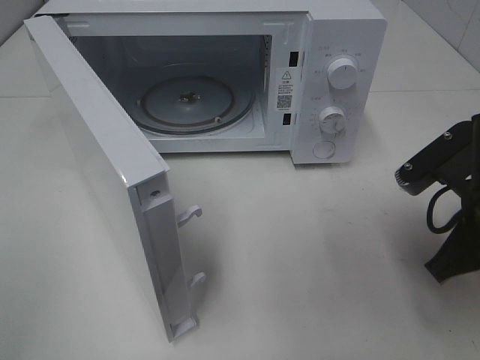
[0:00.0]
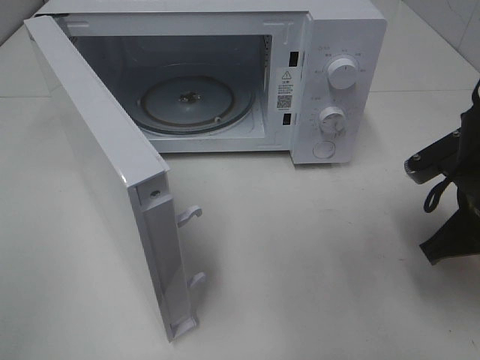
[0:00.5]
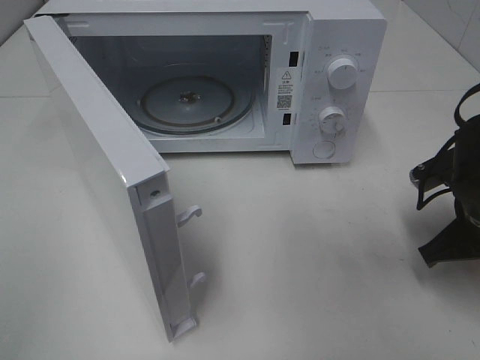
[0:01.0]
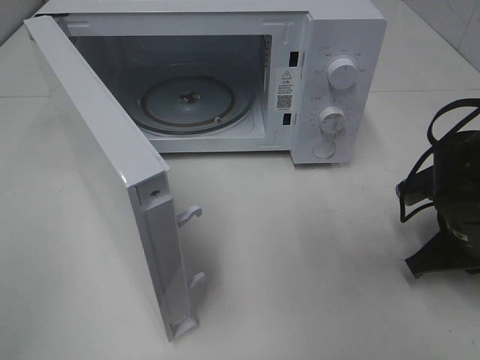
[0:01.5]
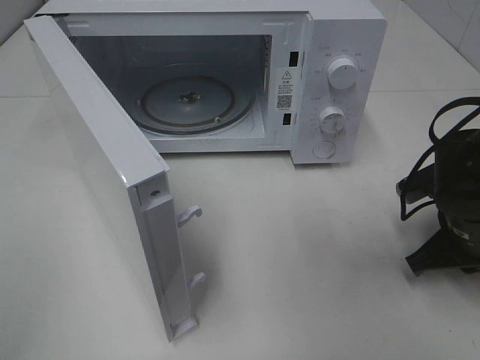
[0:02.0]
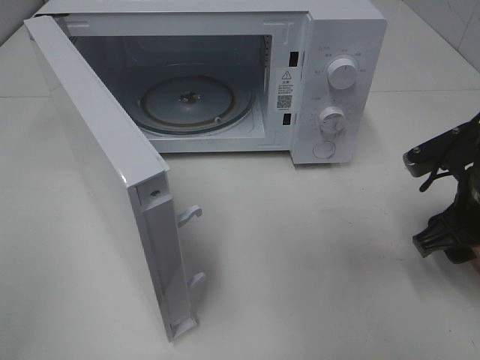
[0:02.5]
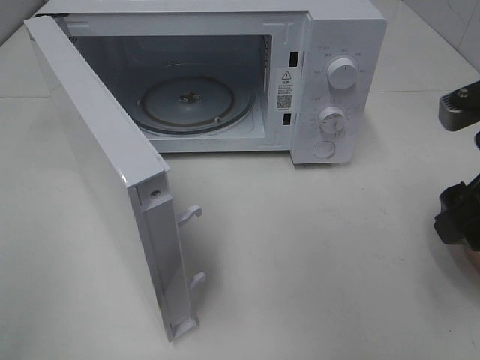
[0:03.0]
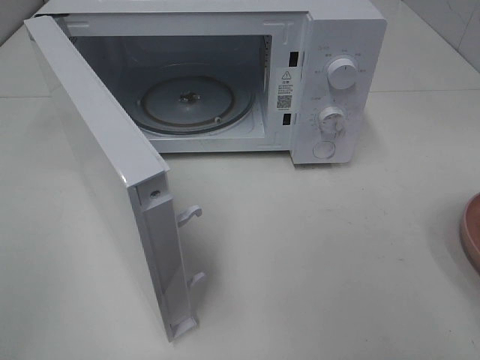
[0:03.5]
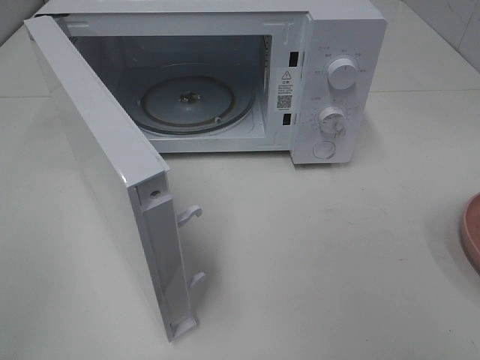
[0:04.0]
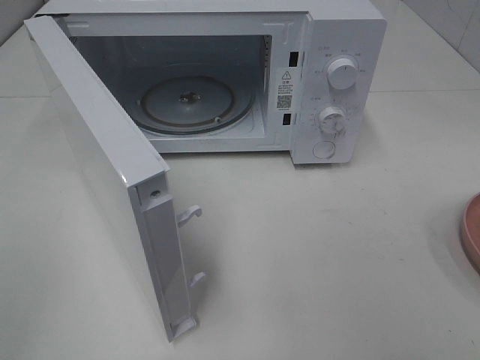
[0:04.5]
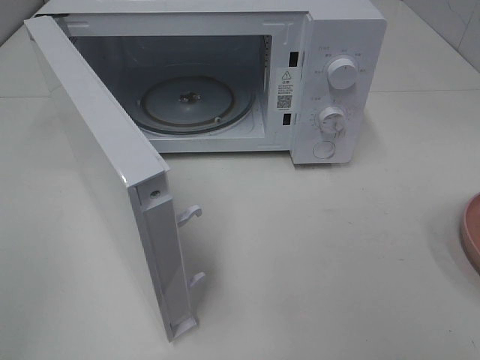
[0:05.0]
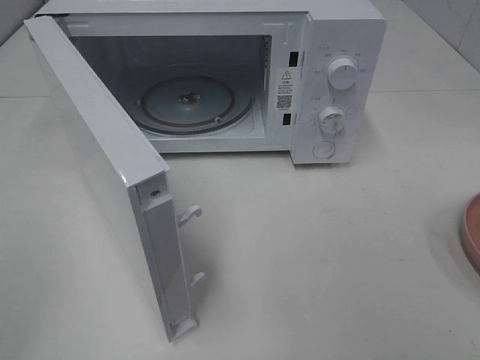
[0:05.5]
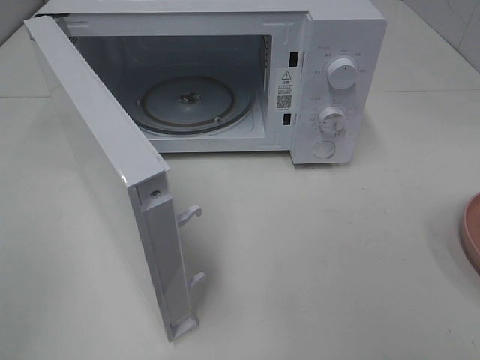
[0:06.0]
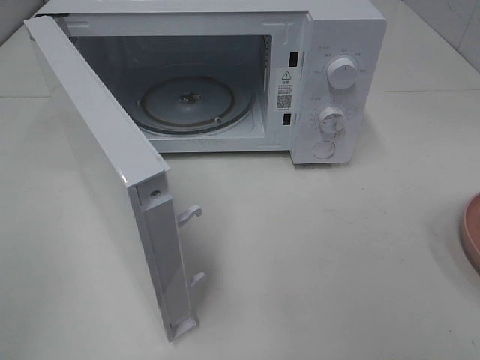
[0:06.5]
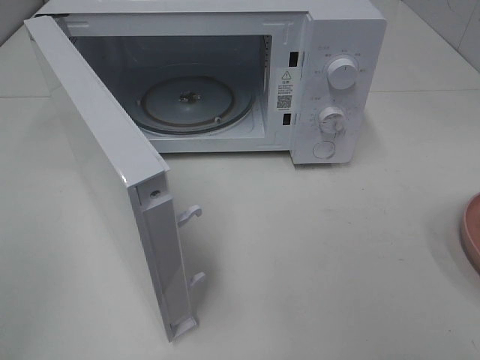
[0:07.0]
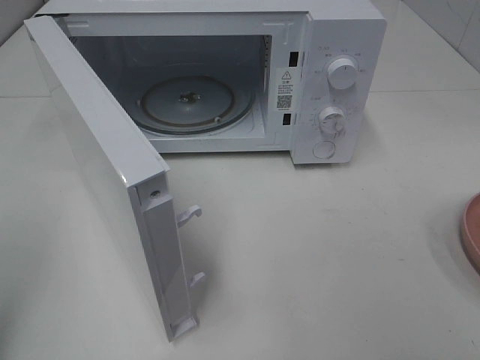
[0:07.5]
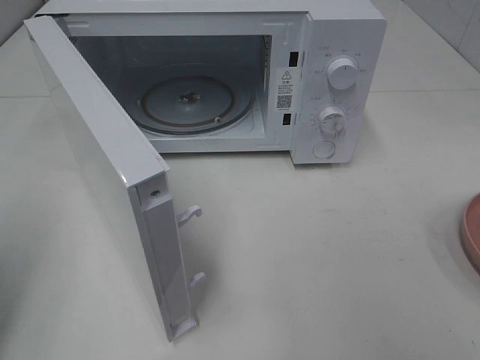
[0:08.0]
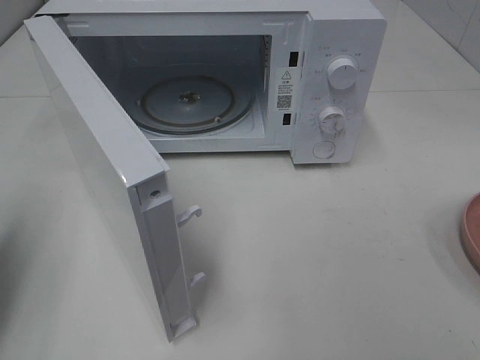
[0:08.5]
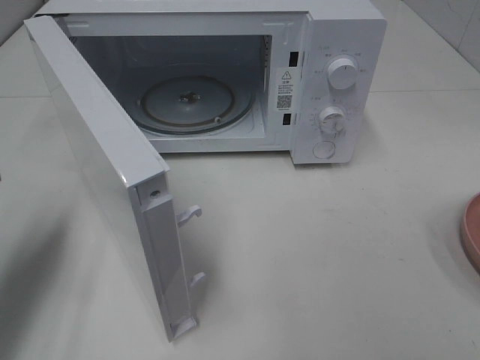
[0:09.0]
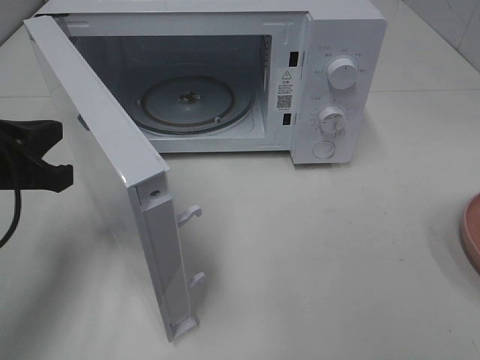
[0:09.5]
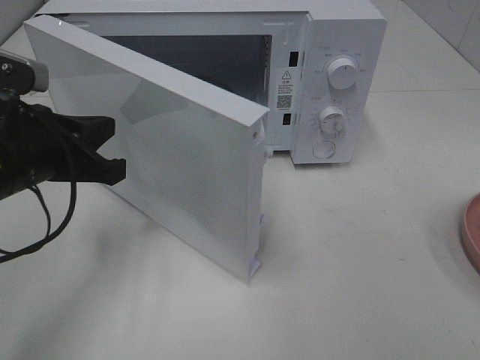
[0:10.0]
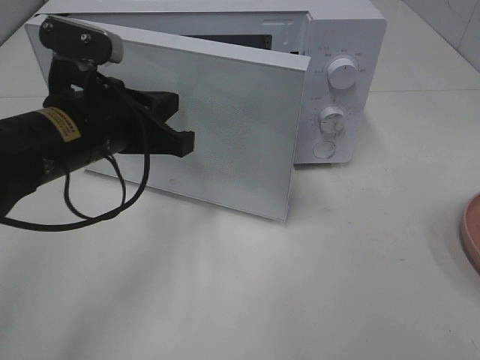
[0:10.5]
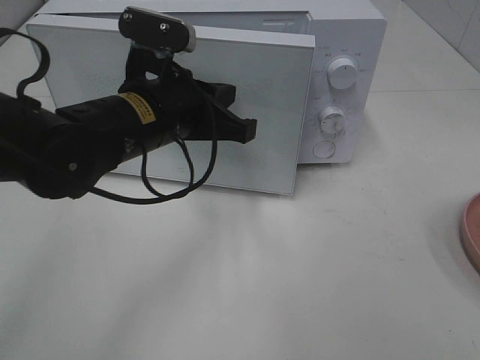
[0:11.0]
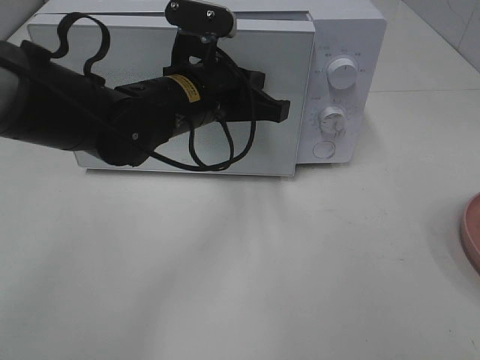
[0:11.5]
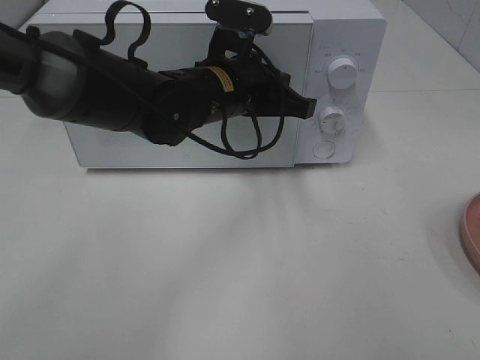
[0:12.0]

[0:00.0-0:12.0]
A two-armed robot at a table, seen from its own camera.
Task of the whole recording: Heat Sandwich.
Step, 0.0 to 2.0 s: Right hand: place the plate on the table.
0.0 to 2.0 s: The right gripper moves downward and forward, roughly 10 cm.
2.0 to 4.0 s: The right gripper shifts about 30 cm upward and backward, and opens.
8.0 to 10.0 s: The left gripper travels to the right, forward and downward by roughly 20 cm.
10.0 to 12.0 s: The left gripper heads to the right and forward, covering approximately 20 cm.

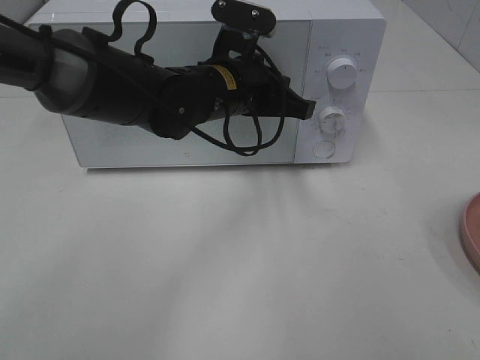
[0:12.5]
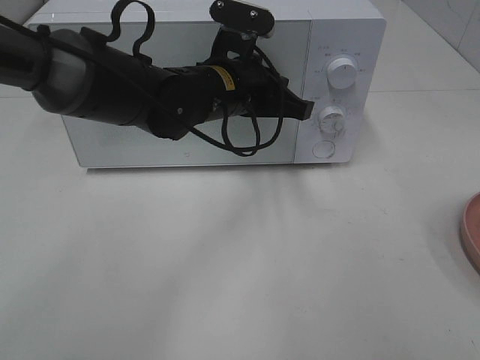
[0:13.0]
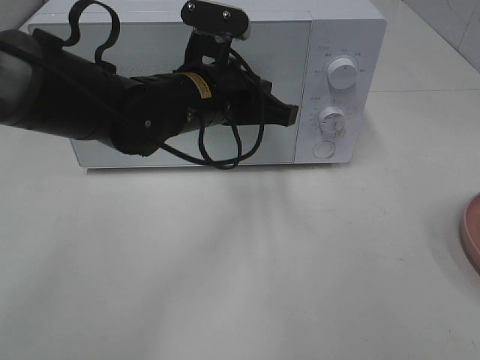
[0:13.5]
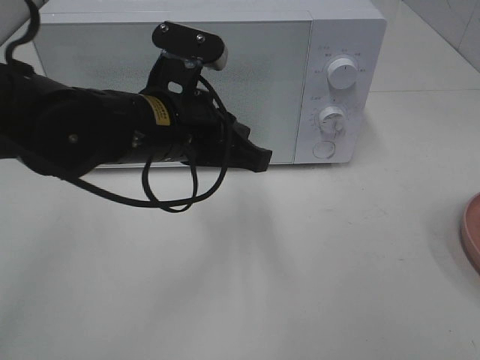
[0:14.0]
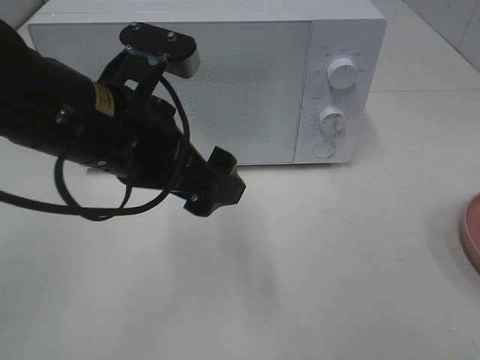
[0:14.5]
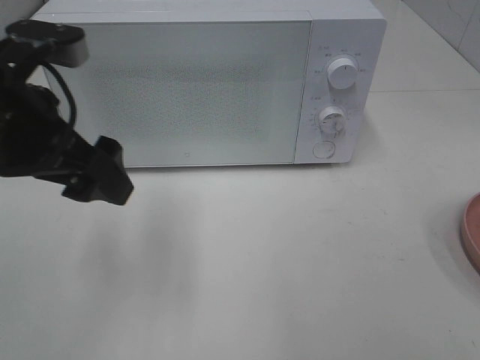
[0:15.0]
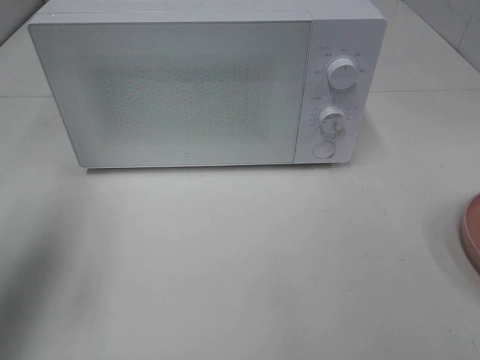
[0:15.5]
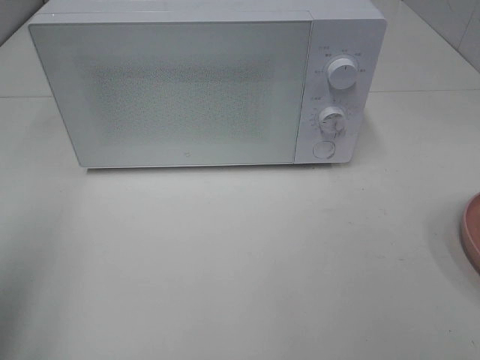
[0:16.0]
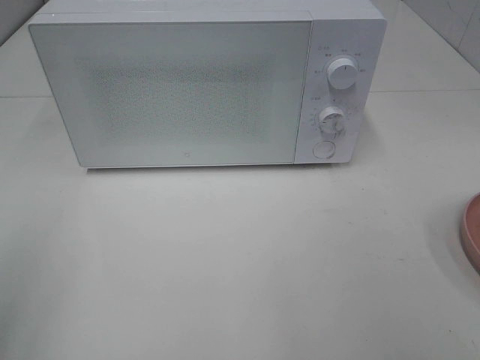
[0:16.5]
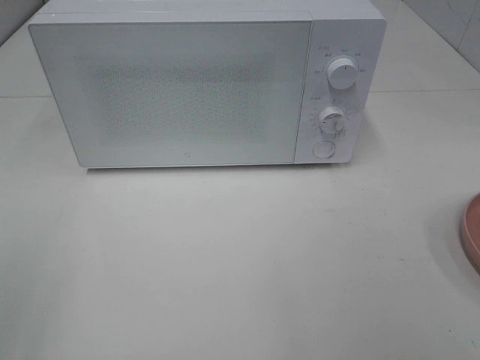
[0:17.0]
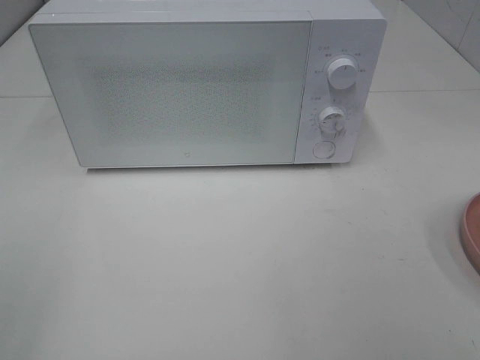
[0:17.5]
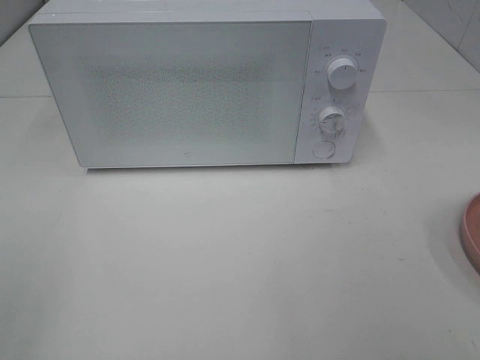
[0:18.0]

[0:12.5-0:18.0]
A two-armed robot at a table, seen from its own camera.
Task of the whole recording: Heat Sandwich.
12.5 to 14.5 s: The left gripper shifts roughly 15 cm backward and to the left, and opens up.
14.5 to 16.0 s: The left gripper travels to the left and backward by approximately 25 cm.
16.0 to 18.0 s: The left gripper is displaced backward by approximately 10 cm.

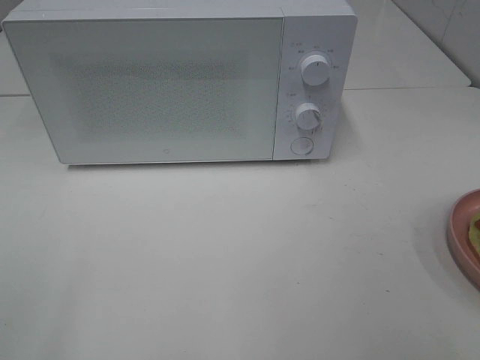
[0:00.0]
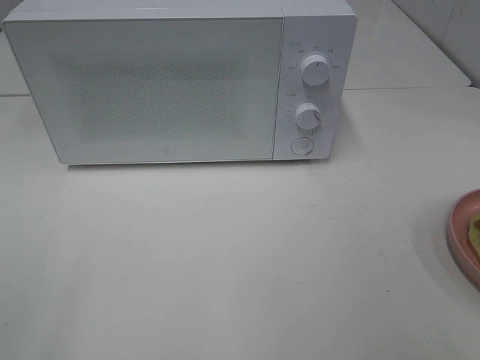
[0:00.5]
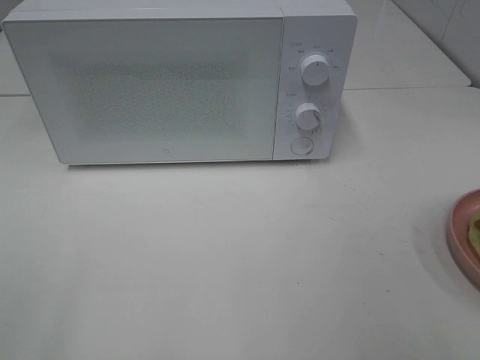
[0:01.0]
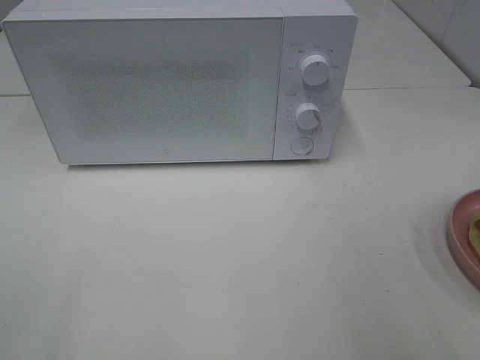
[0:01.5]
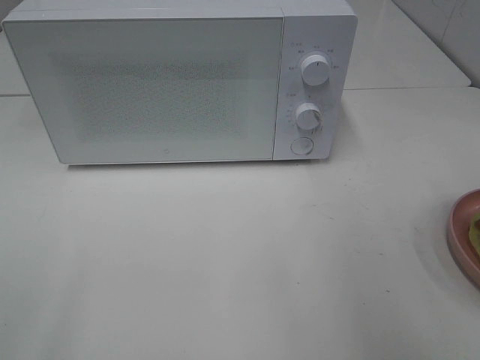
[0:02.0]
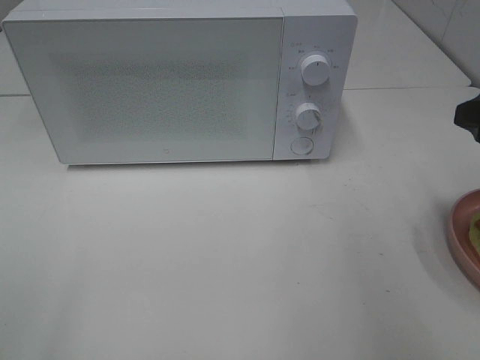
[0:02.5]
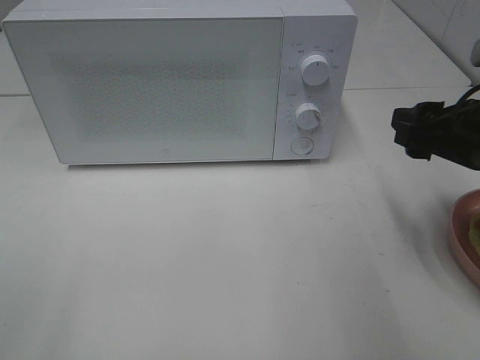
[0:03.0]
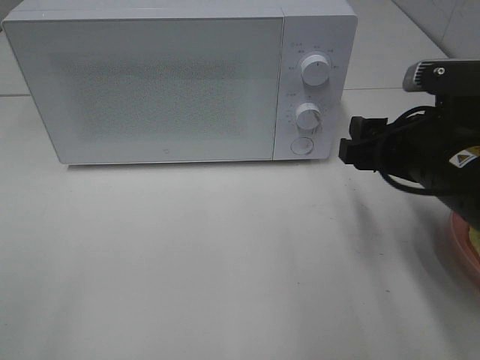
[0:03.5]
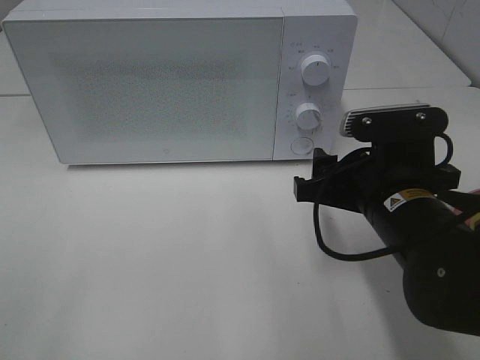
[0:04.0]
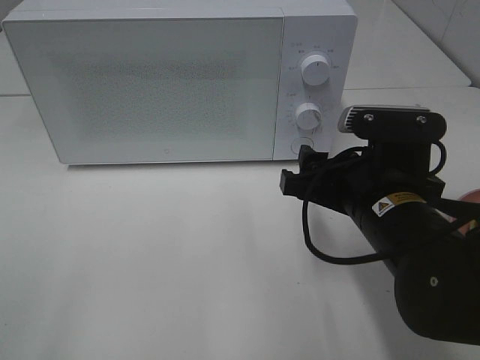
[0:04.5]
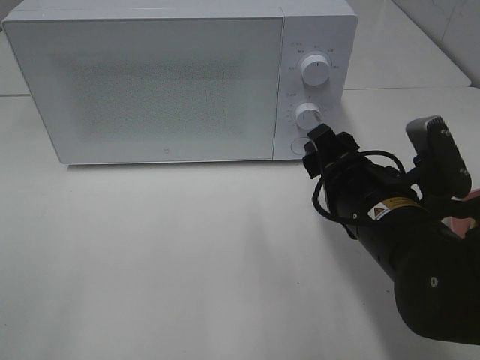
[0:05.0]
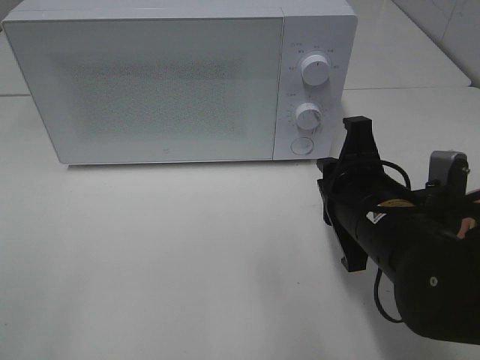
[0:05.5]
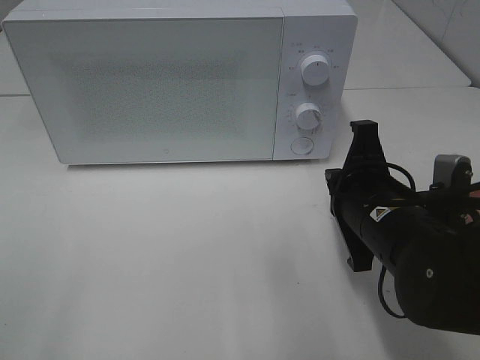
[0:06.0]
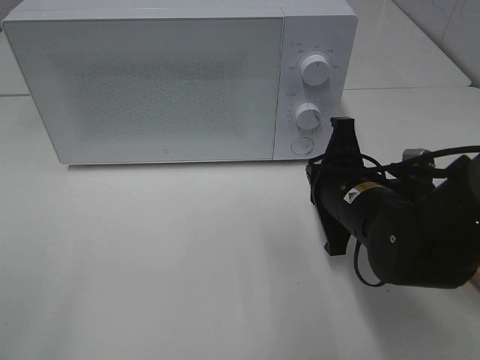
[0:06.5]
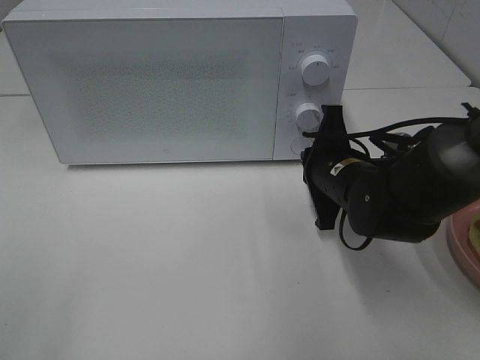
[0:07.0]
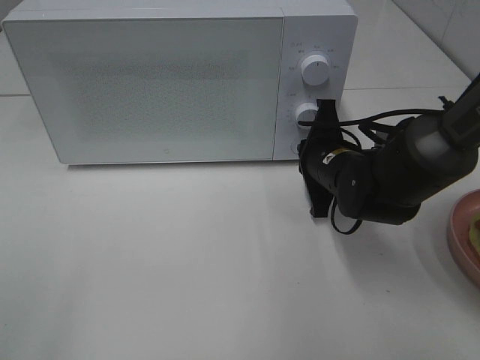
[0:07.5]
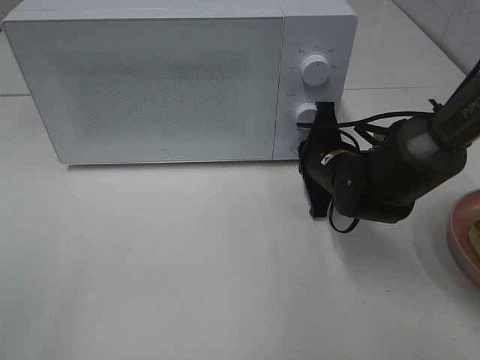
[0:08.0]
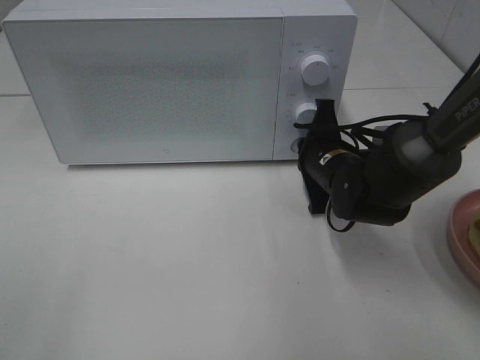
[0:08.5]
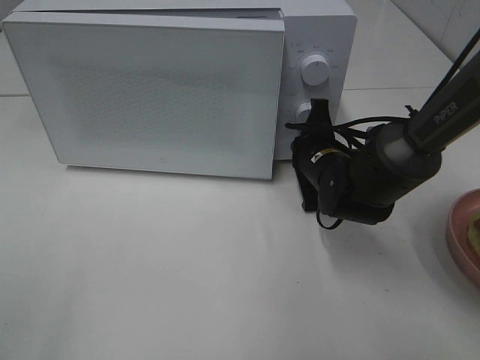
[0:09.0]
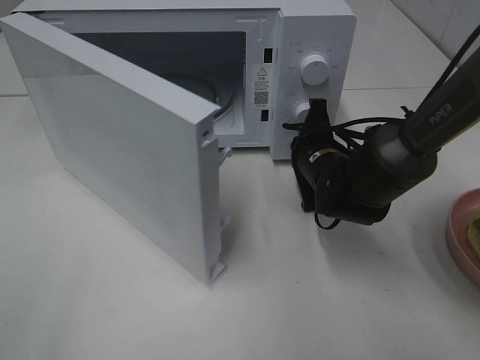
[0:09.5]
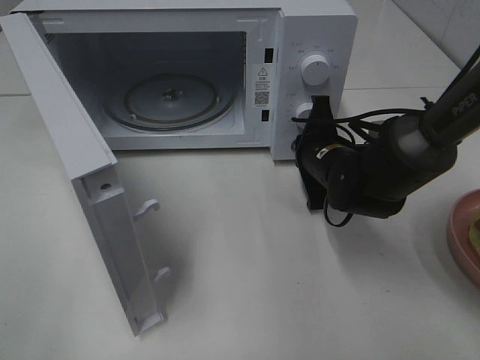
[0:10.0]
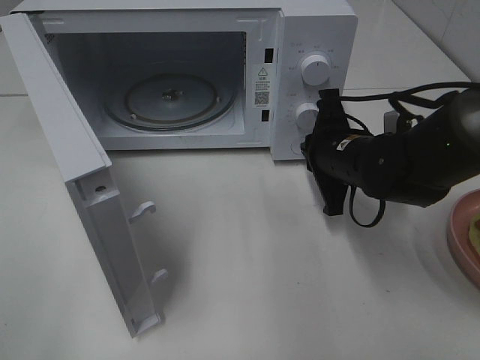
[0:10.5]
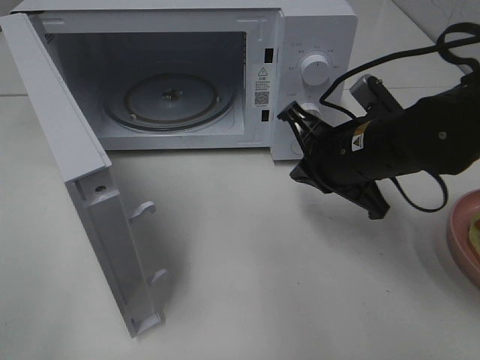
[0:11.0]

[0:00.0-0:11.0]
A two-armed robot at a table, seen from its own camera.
Task of the whole recording: Heat Sandwich.
Step, 0.0 to 10.5 s: Right hand: press the switch.
2.0 to 3.5 s: The right gripper travels downward, to the left and forward by some 15 cm.
3.5 to 5.5 s: The right gripper heads to the left, covering approximately 5 cm, and closes up.
5.5 to 7.5 s: The right gripper travels forward and downward by approximately 15 cm.
7.5 to 9.0 s: The grippers stay close to where they were, moving slightly.
9.0 to 11.0 s: The right gripper shifts roughly 10 cm upward and backward.
